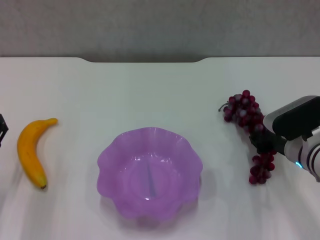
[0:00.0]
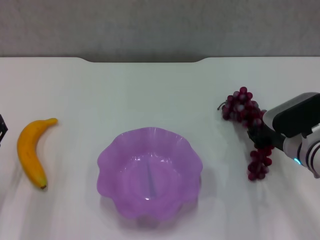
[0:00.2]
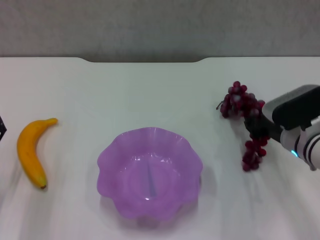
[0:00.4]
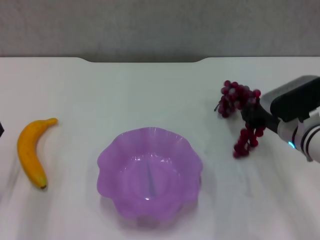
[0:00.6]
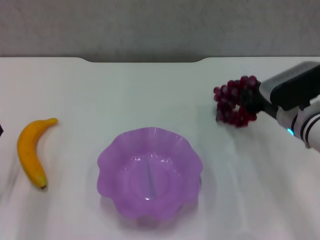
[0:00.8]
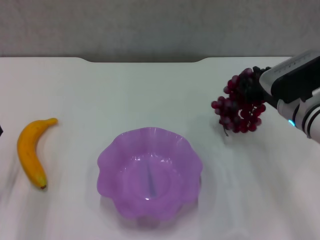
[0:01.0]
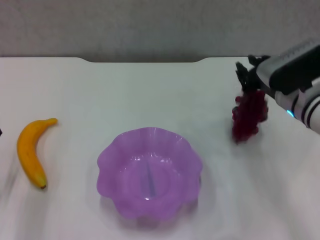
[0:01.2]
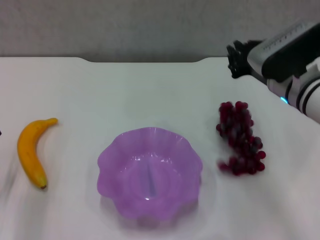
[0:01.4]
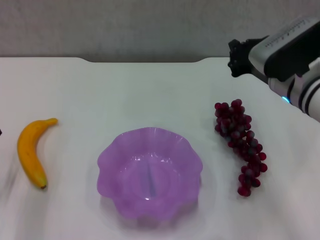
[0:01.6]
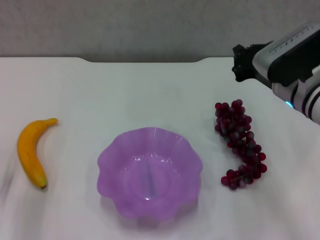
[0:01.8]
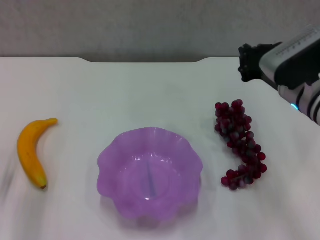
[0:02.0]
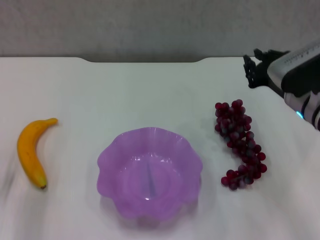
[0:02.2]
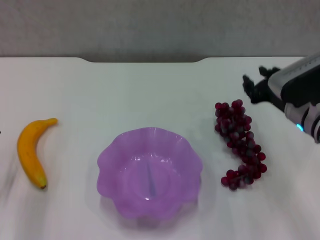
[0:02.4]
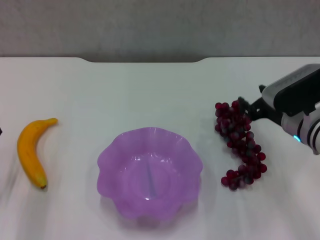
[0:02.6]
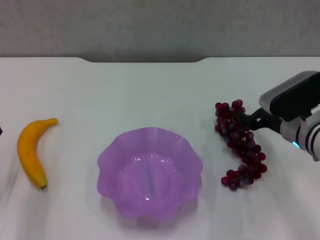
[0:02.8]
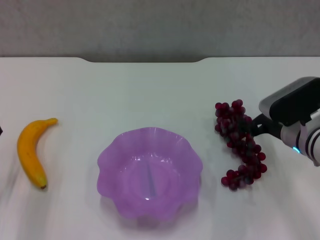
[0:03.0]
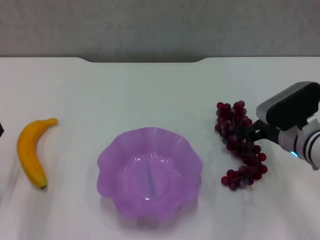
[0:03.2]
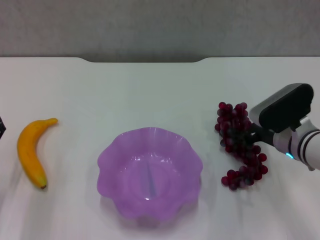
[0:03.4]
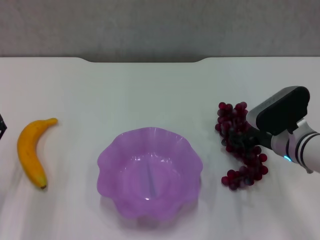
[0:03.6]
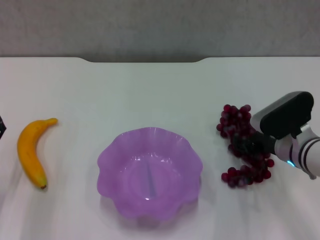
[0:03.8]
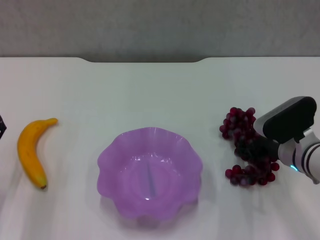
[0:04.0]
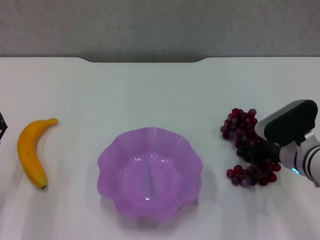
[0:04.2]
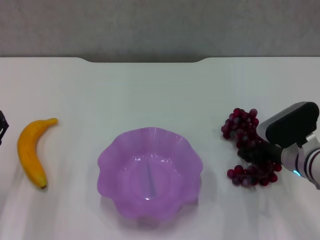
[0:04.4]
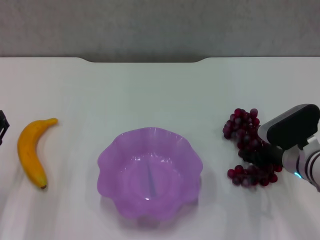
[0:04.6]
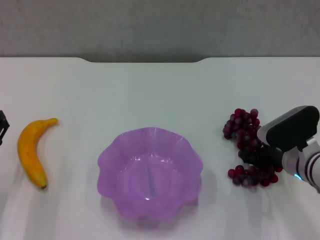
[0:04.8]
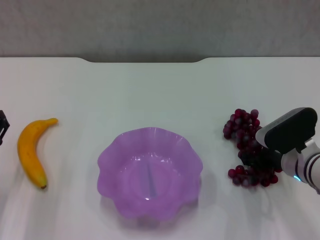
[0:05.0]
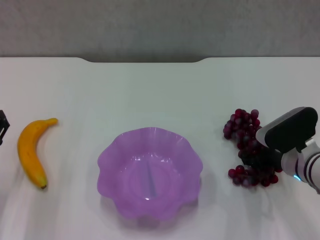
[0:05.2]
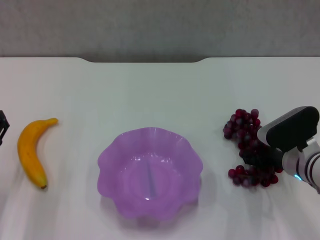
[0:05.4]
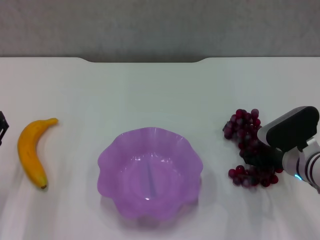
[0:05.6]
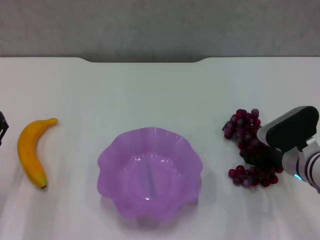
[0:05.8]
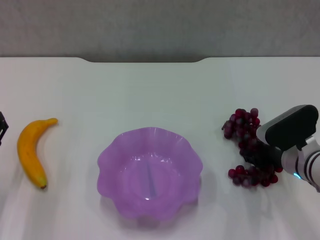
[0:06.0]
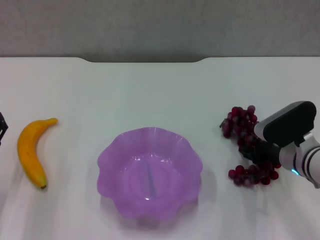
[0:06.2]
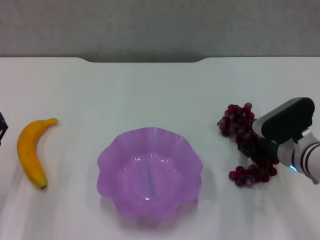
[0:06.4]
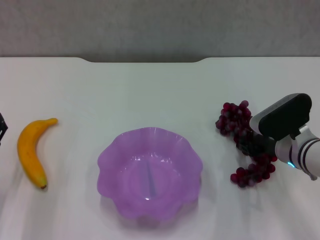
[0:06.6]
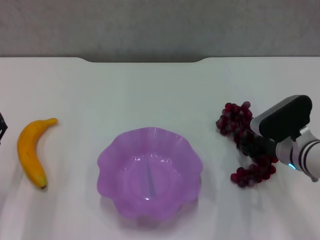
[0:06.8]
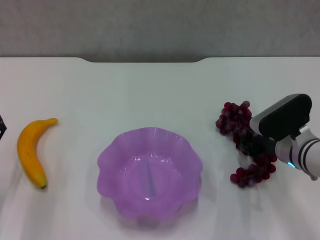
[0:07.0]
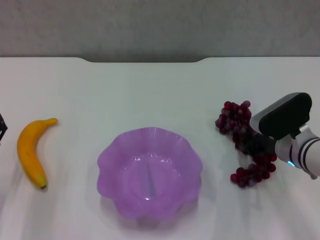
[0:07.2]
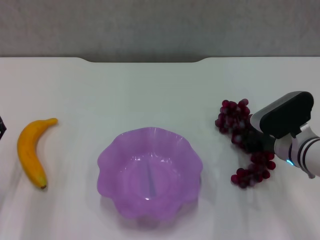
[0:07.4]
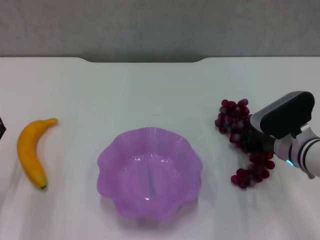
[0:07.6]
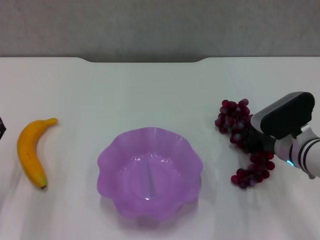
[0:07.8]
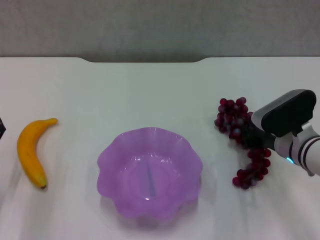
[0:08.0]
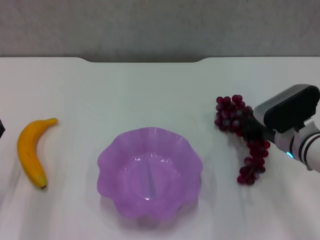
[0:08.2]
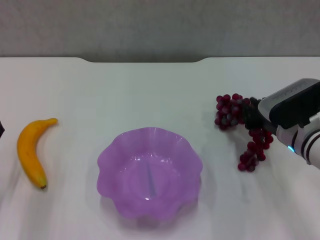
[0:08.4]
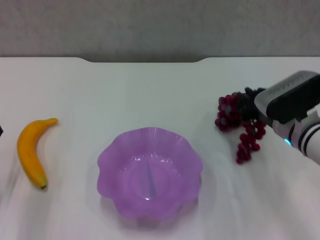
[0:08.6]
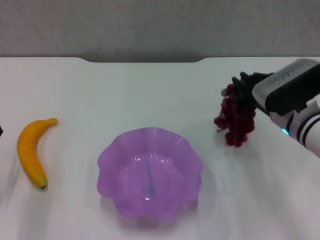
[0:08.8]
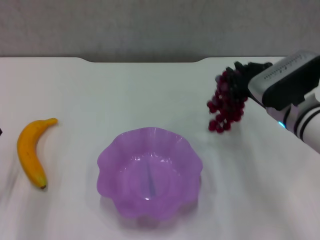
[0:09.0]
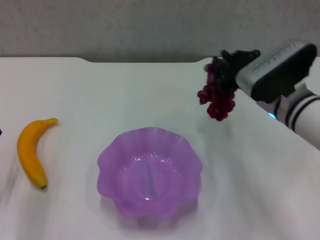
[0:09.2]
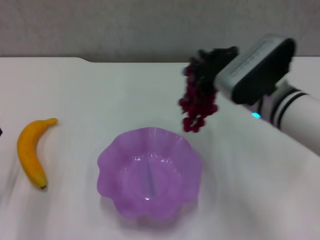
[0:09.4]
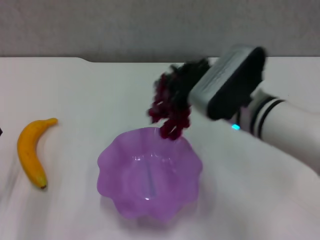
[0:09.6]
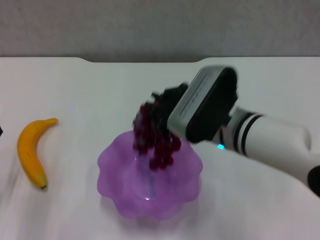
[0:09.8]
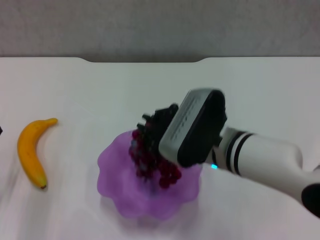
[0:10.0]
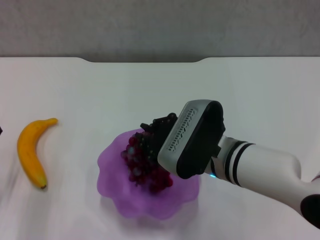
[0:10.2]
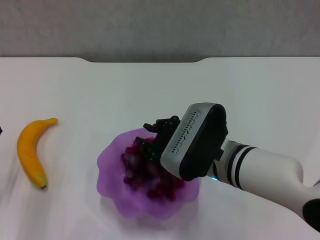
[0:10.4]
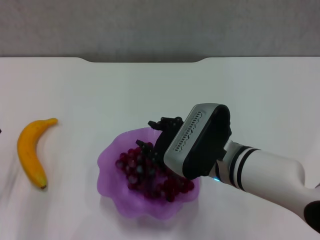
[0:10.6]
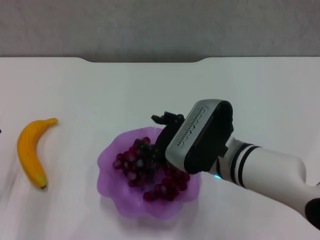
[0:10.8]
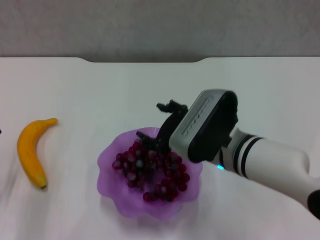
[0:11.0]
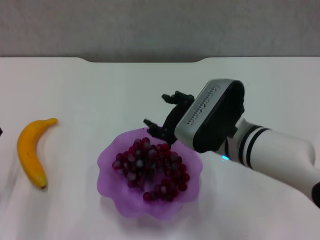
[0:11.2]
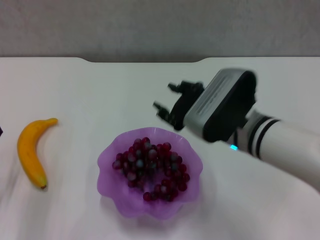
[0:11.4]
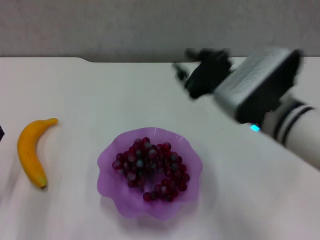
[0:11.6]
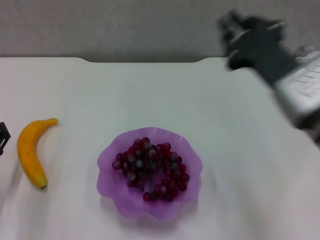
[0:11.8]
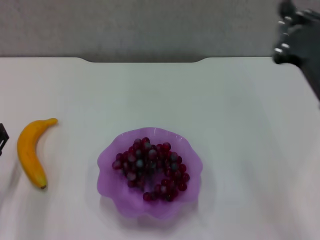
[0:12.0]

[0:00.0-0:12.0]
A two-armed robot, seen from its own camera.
Step, 0:00.0 to 0:07.8: Grasp the grape with right gripper.
Step, 0:08.0 to 0:10.8: Place the grape in the purple plate with right gripper.
0:00.0 to 0:01.6: The right gripper travels upward and to the left by roughly 15 cm.
0:01.6 to 0:03.0: The right gripper heads downward, covering about 10 cm, and opens.
0:03.0 to 0:04.4: There are only small adjustments of the grippers.
0:04.4 to 0:06.0: The two grippers keep their place.
0:06.0 to 0:07.6: The right gripper closes up.
0:07.6 to 0:09.0: The right gripper is displaced upward by approximately 5 cm.
0:09.0 to 0:10.4: The right gripper travels to the left and backward by about 15 cm.
0:10.4 to 0:12.0: The right gripper travels to the right and upward by some 15 cm, and opens, then closes once more.

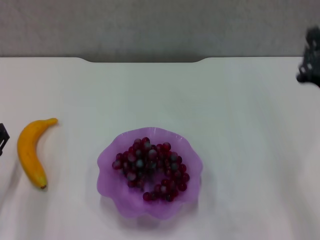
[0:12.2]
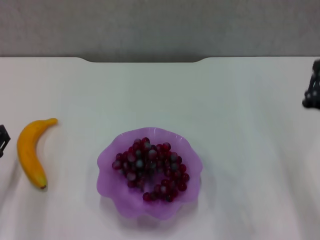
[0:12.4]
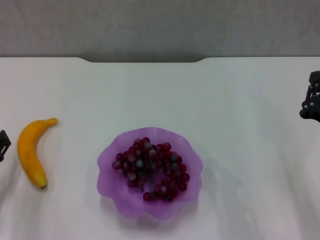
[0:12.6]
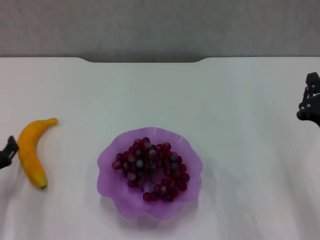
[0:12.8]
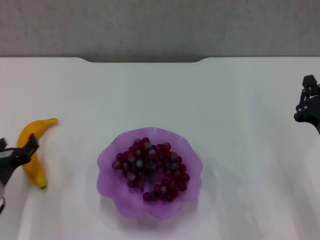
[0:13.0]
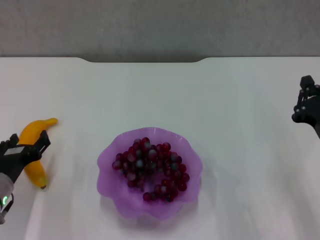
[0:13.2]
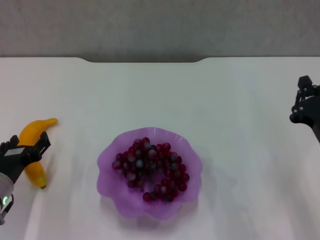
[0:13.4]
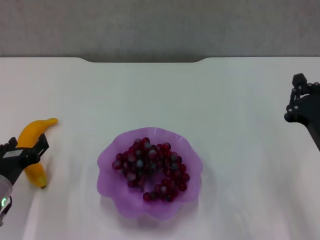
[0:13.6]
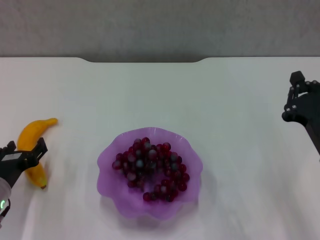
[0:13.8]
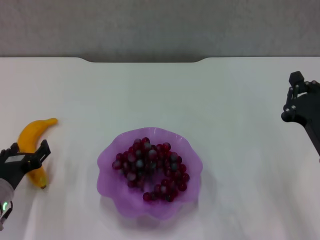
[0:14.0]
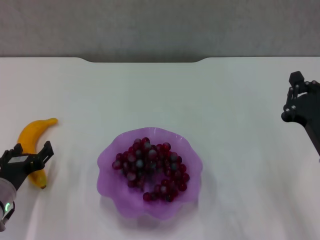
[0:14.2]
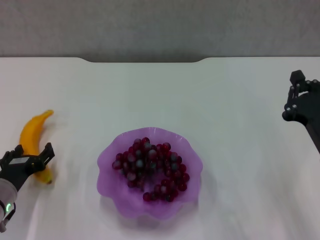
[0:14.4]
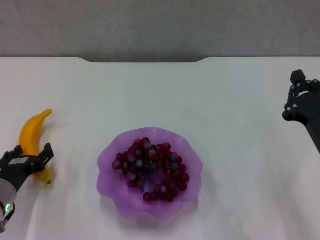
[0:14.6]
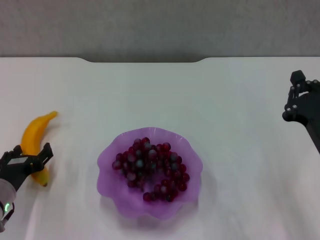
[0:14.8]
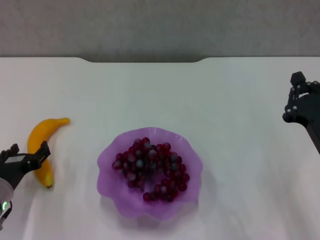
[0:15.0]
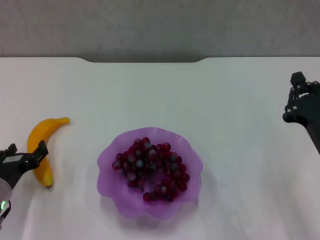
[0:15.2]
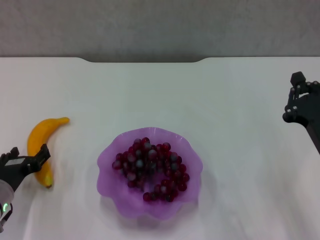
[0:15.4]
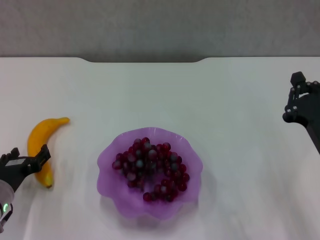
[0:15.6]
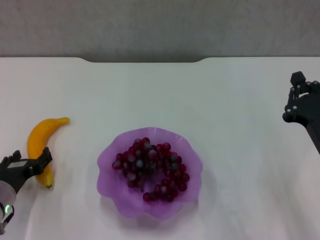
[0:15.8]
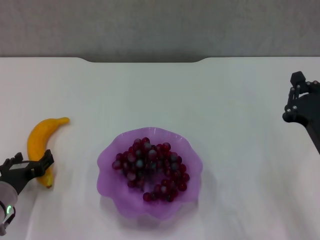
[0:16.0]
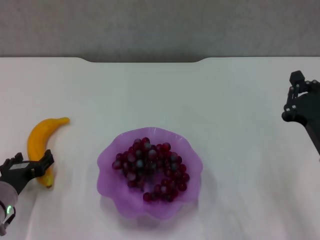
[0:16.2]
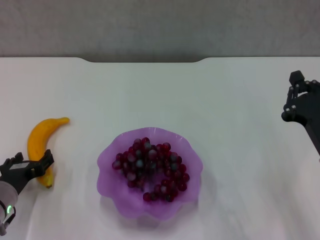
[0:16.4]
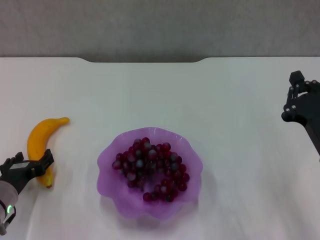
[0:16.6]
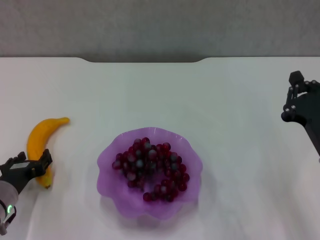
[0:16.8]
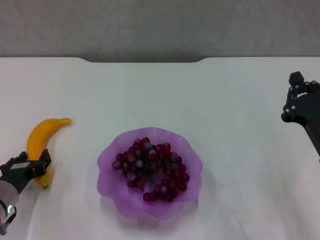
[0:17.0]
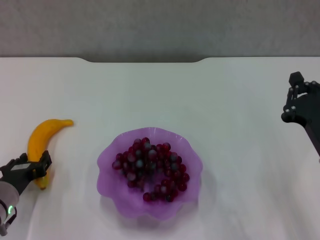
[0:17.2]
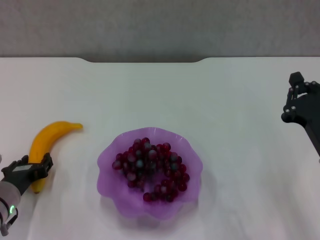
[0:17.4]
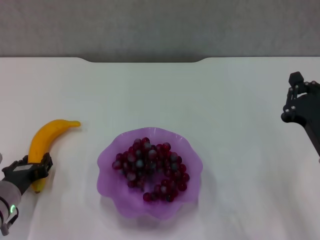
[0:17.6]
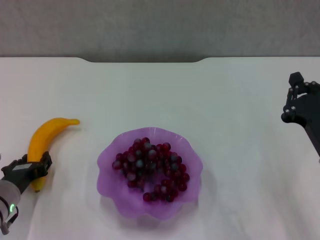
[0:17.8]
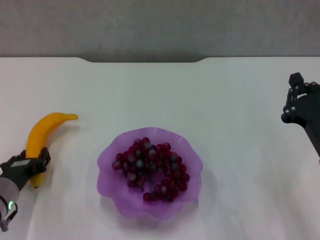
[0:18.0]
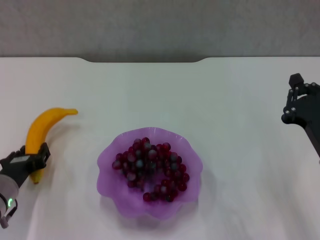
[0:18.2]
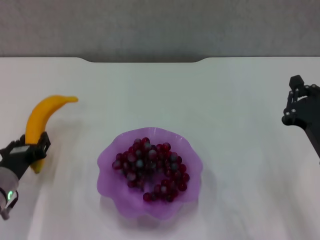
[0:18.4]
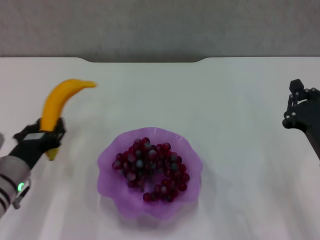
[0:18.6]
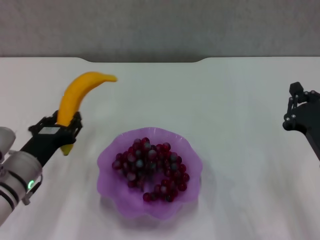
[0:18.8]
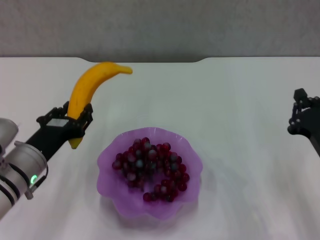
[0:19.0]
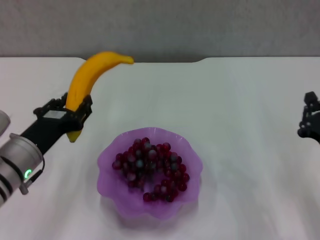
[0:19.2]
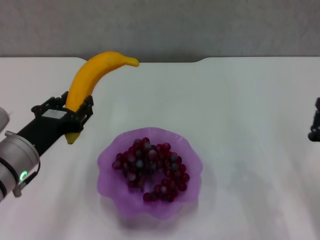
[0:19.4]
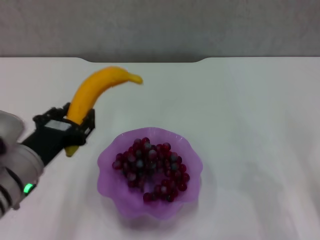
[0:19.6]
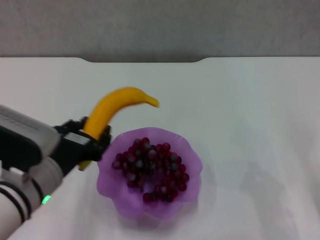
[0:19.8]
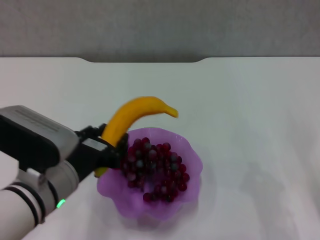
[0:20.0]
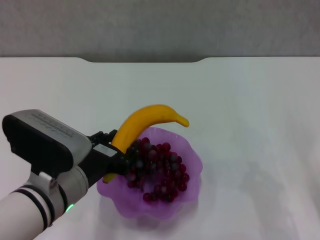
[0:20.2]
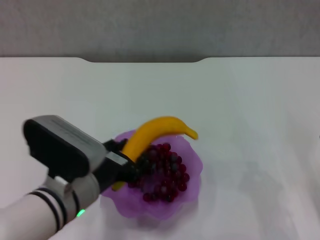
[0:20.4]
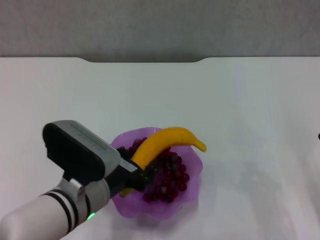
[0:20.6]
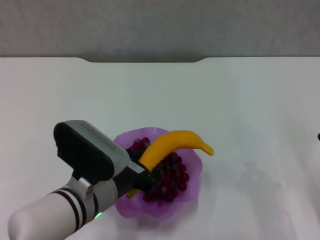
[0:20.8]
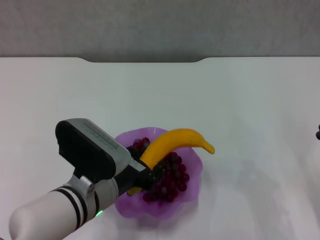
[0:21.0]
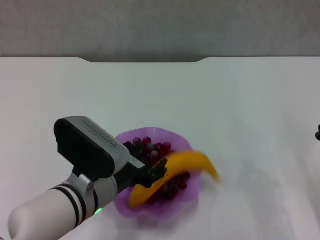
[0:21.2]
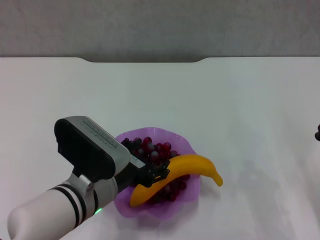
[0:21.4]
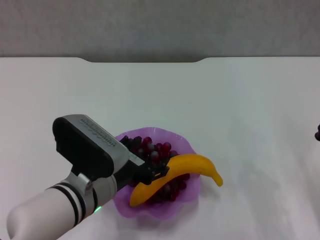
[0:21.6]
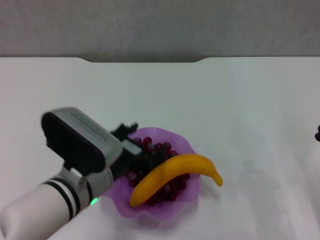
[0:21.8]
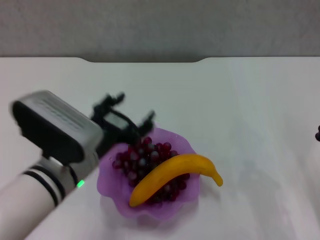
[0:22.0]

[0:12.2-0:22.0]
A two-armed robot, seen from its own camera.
Step, 0:12.2 to 0:17.6: Grasp the banana with left gripper.
Step, 0:17.8 to 0:21.4: Place the banana in the purple plate with left gripper.
0:12.2 to 0:13.6: The right gripper shifts about 5 cm downward.
0:13.6 to 0:15.0: Both grippers stay about where they are.
0:15.0 to 0:16.4: The two grippers keep their place.
0:16.4 to 0:17.8: Both grippers stay about where they are.
0:17.8 to 0:19.2: The right gripper moves roughly 5 cm; the left gripper moves upward and to the right, about 10 cm.
0:19.2 to 0:20.6: The left gripper moves to the right, approximately 10 cm.
0:20.6 to 0:22.0: The left gripper opens up.
